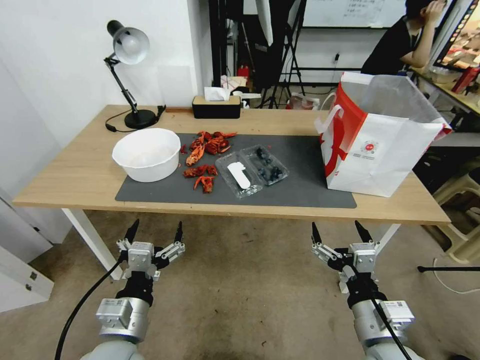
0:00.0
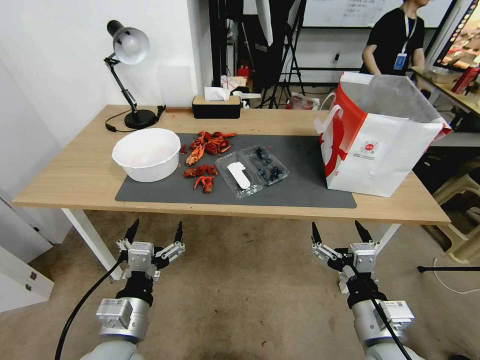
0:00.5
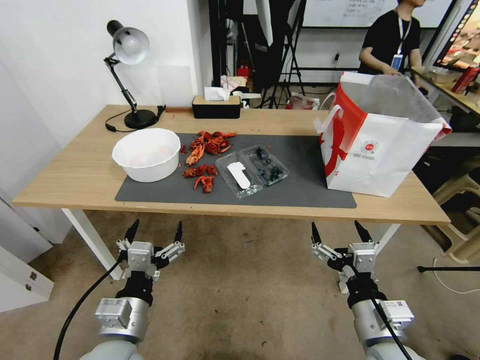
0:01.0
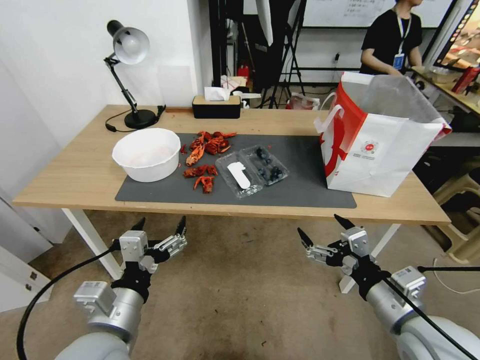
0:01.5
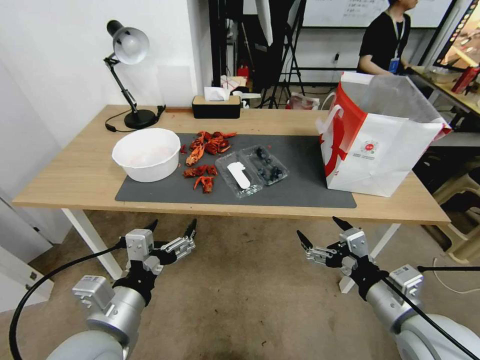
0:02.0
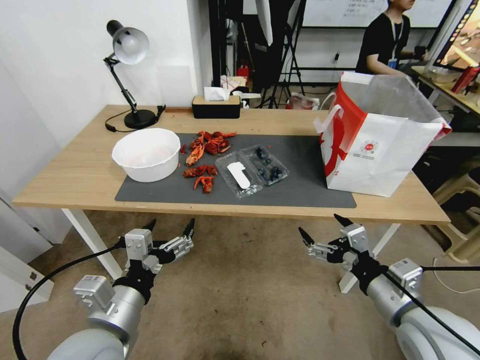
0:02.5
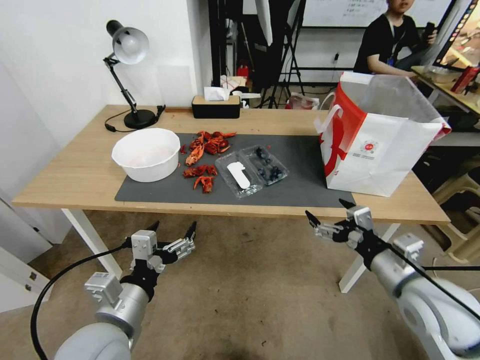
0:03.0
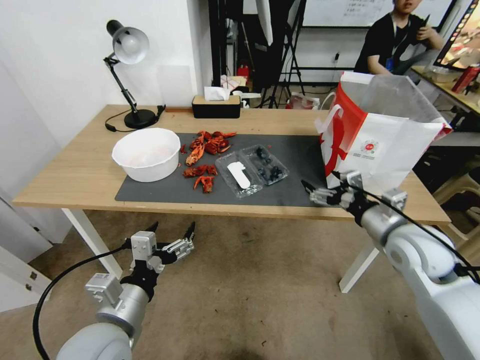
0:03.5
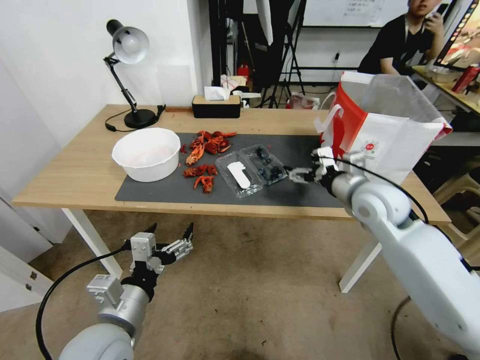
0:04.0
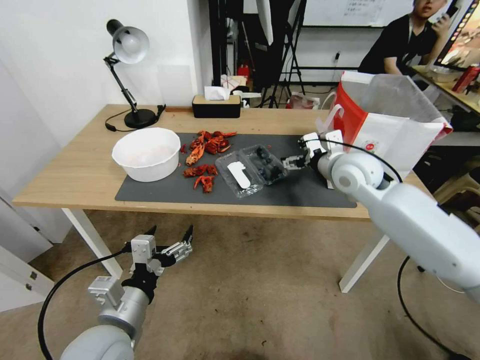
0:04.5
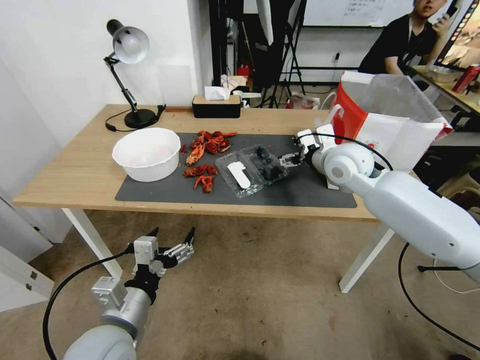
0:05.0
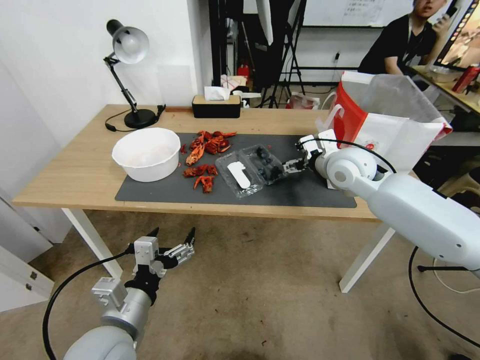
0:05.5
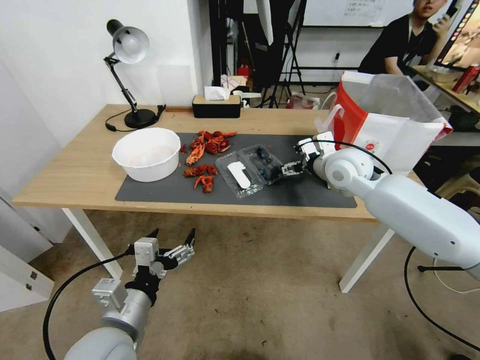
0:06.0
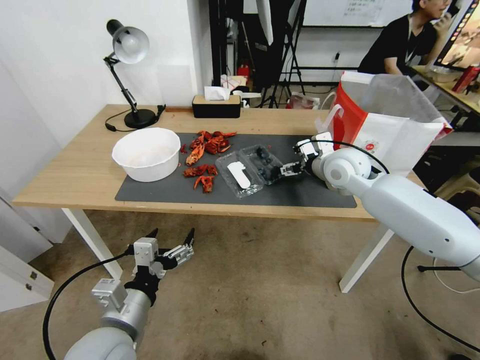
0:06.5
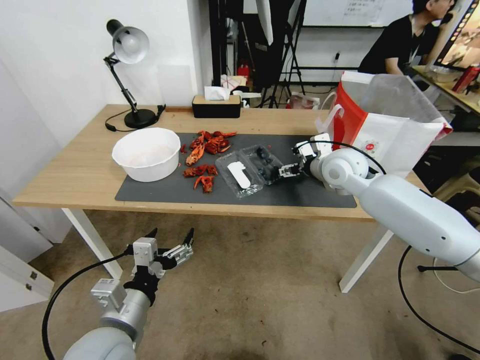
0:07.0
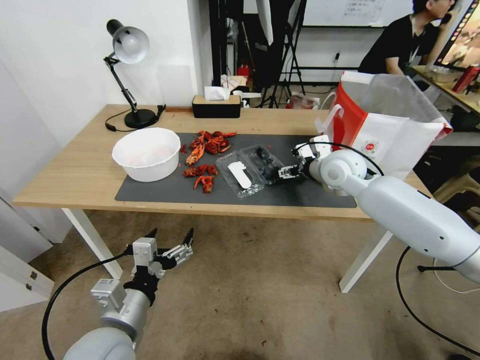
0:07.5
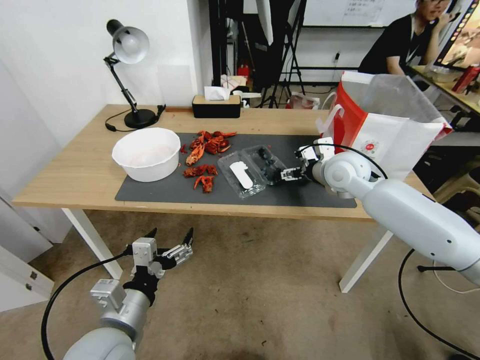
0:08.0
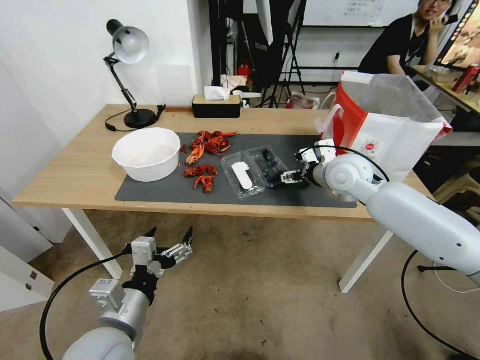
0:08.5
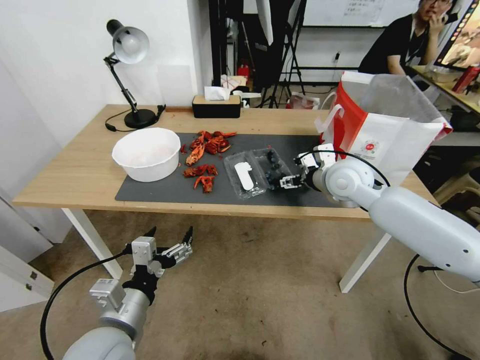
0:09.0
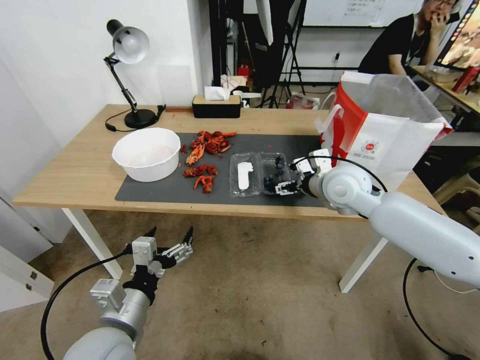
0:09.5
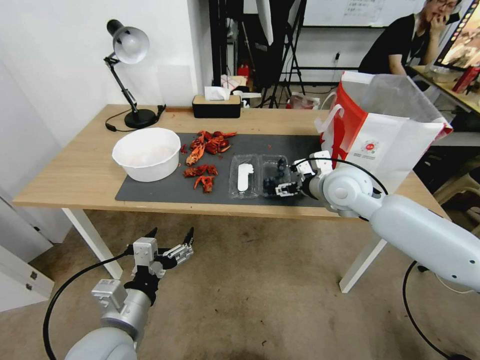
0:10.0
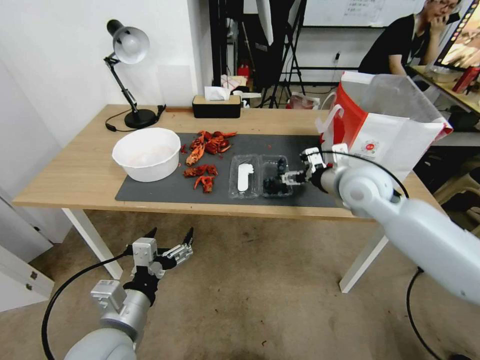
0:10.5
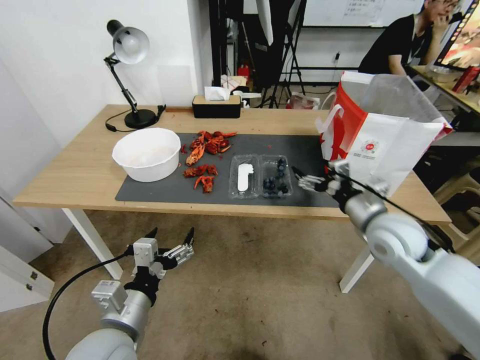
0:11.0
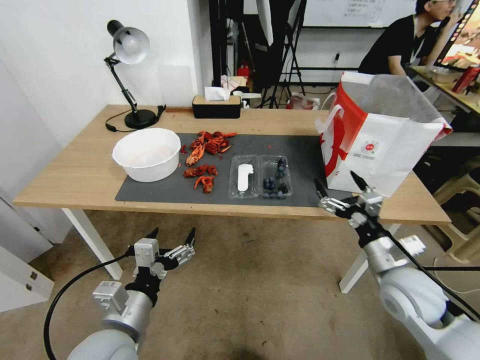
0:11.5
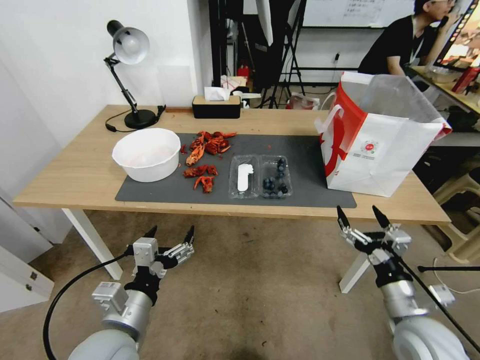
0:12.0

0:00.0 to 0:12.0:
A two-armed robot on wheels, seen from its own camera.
Task of the whole recording: Close the takeout container lid, then place the container into the takeout bag.
0:02.0 to 0:04.0: The right gripper shifts approximately 25 cm forward.
0:04.0 to 0:06.0: The right gripper heads forward, covering some 10 cm.
0:06.0 to 0:08.0: The grippers make only small movements.
0:08.0 to 0:10.0: The right gripper heads backward, covering roughly 5 cm.
0:10.0 to 0:12.0: The right gripper heads backward, downward and to the right, covering approximately 30 cm.

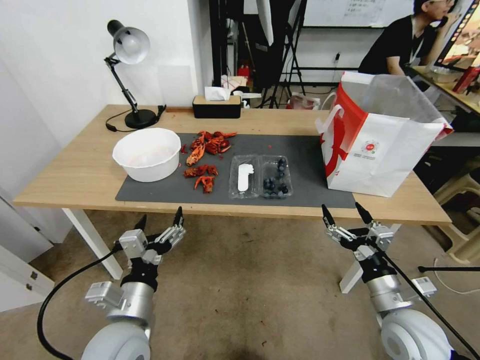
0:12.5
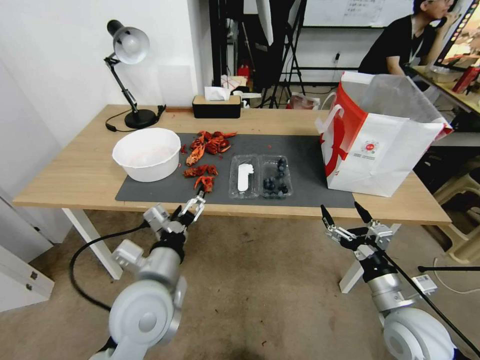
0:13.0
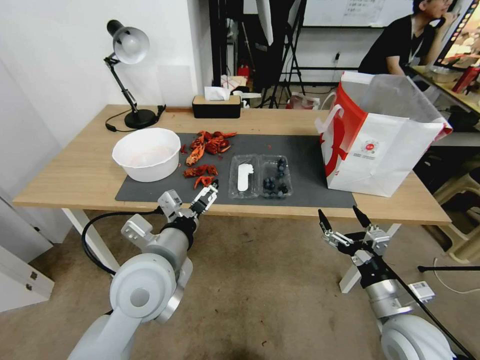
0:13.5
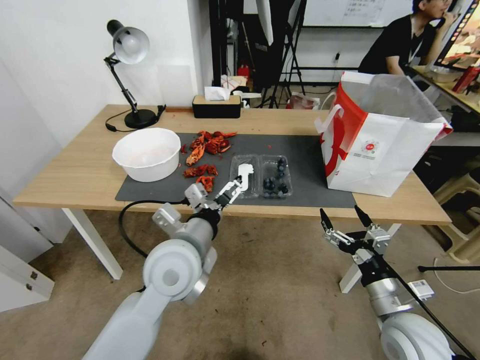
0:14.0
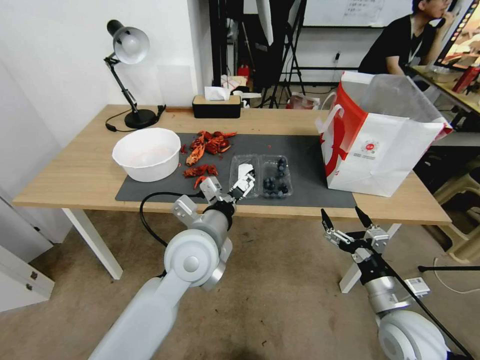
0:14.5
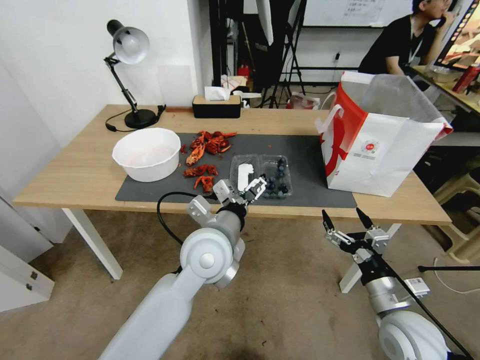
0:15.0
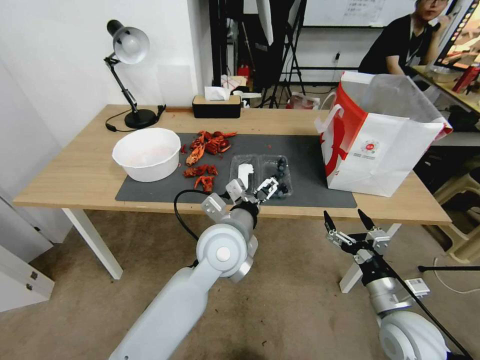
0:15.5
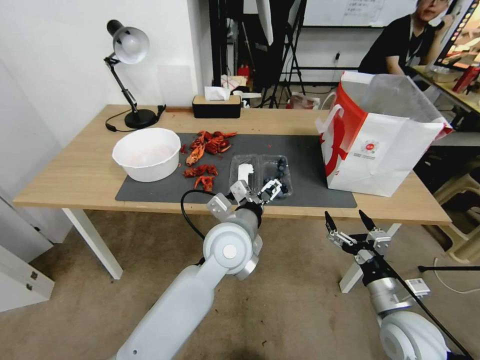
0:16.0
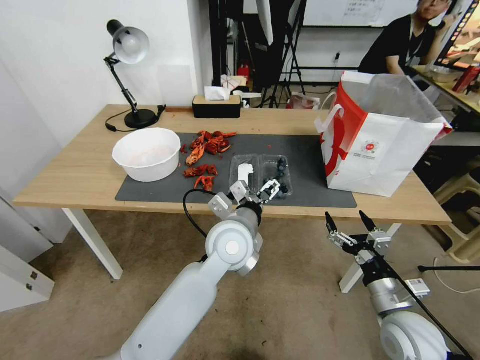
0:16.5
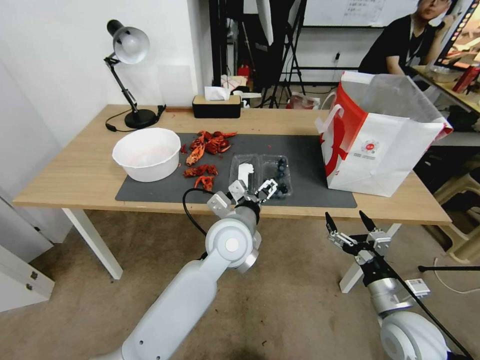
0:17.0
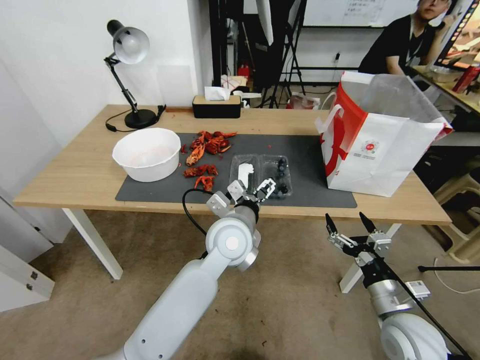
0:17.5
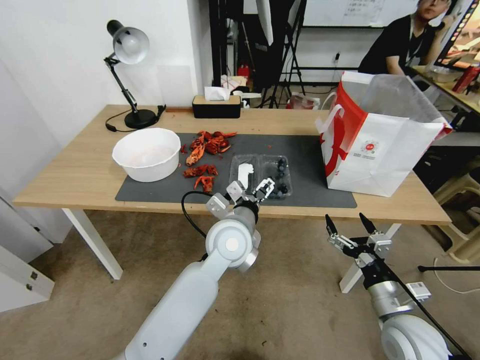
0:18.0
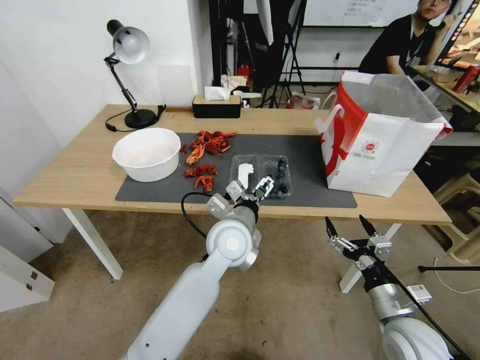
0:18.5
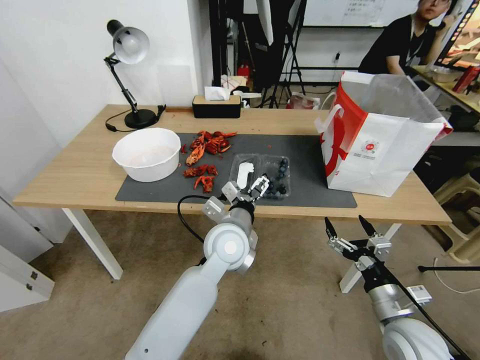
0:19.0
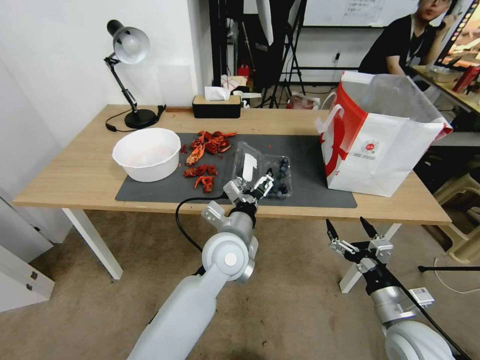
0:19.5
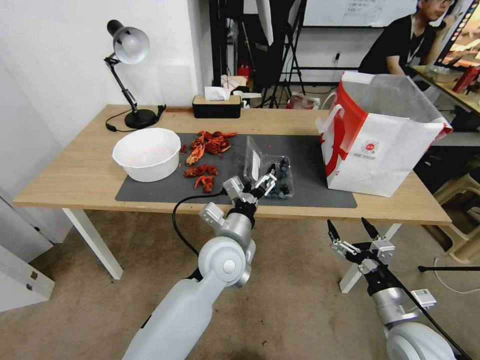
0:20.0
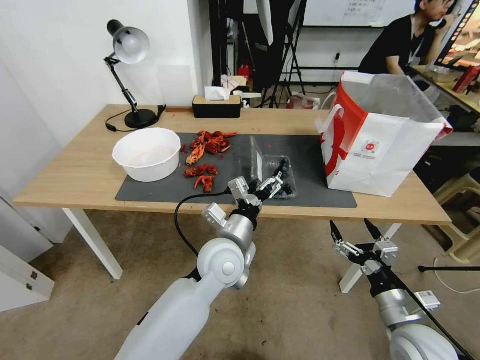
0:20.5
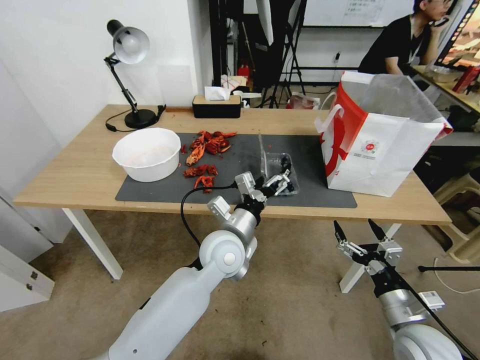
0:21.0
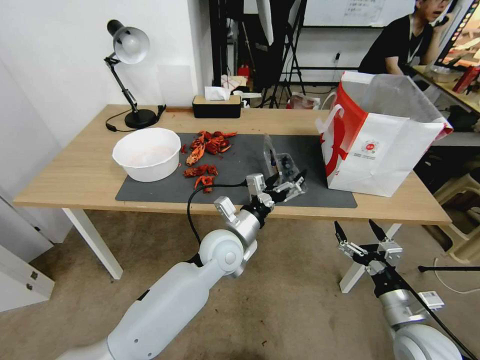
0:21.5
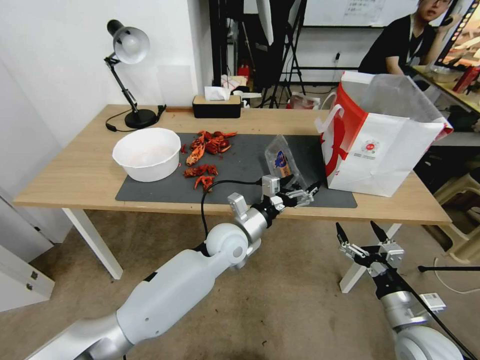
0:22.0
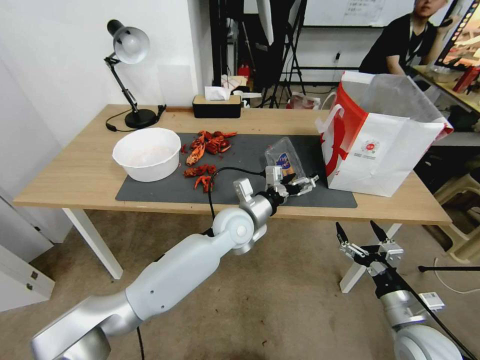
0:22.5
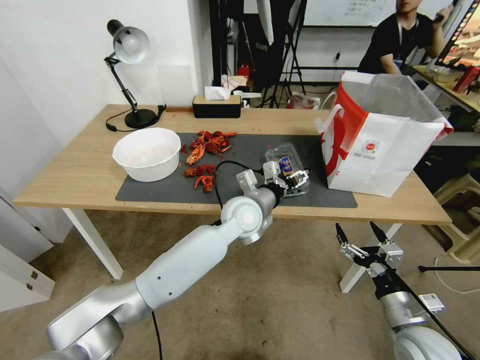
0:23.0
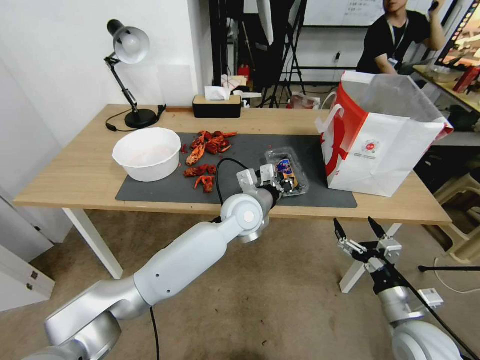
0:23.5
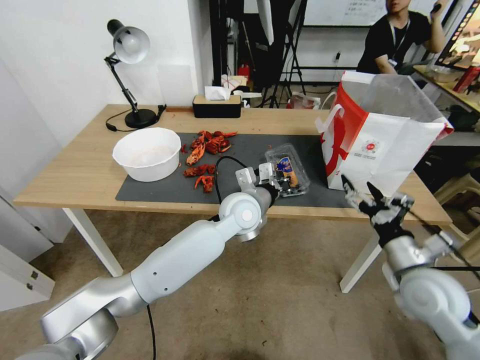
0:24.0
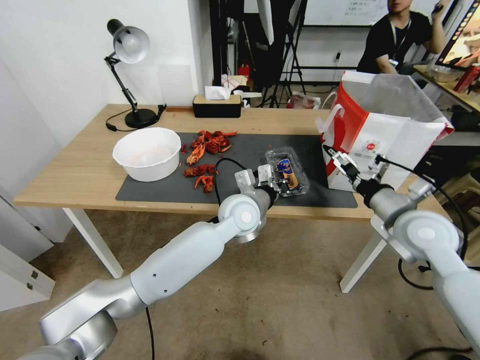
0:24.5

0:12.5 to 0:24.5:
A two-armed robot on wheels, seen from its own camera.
Task of the whole recording: Close the takeout container lid, then place the container into the takeout bag.
0:12.5 to 0:14.5: The left gripper is displaced forward, to the right and upward by roughly 20 cm.
0:14.5 to 0:16.5: The left gripper is displaced to the right by some 5 cm.
0:16.5 to 0:18.5: The grippers move only a little.
0:20.5 to 0:22.5: The left gripper goes about 10 cm forward.
0:22.5 to 0:24.5: The left gripper closes. The right gripper travels upward and forward by about 25 cm.

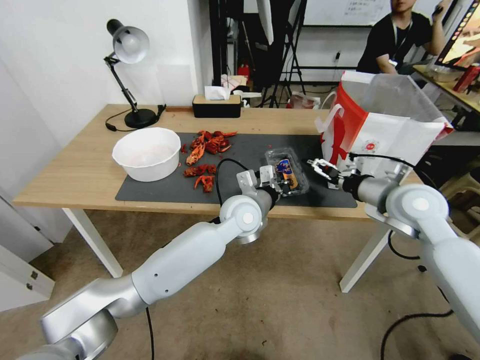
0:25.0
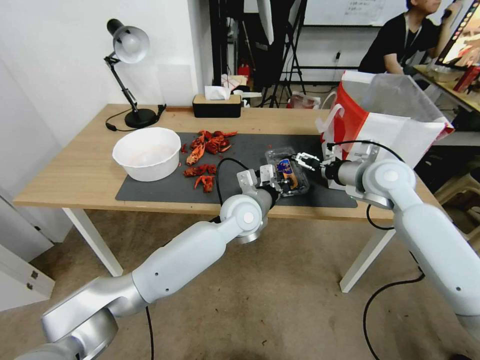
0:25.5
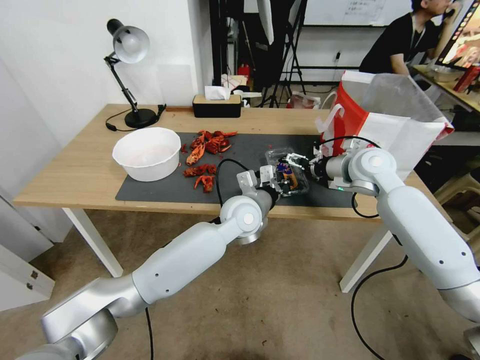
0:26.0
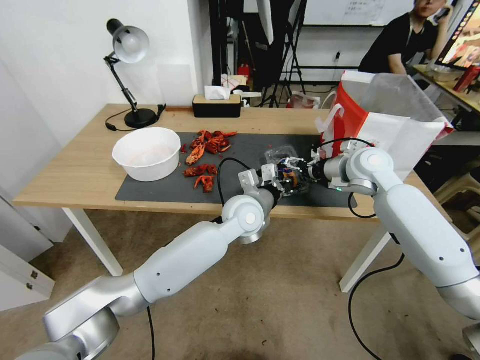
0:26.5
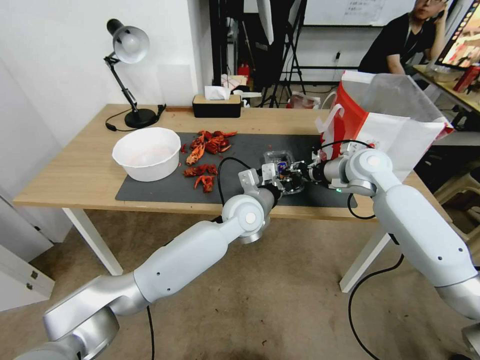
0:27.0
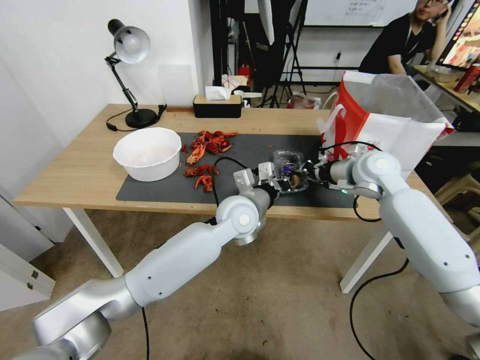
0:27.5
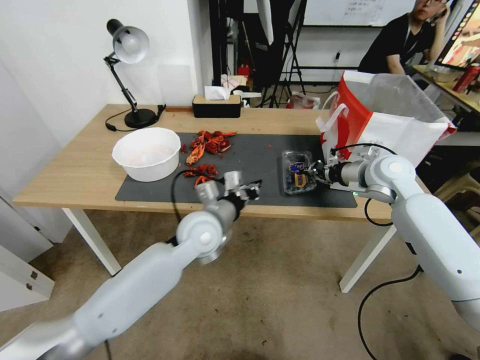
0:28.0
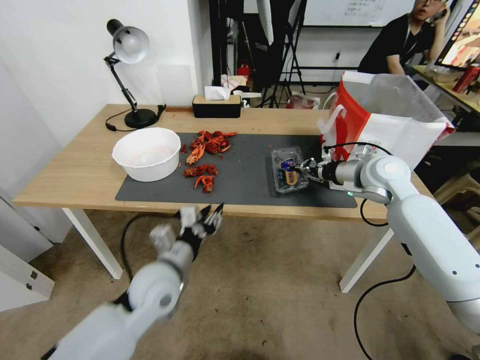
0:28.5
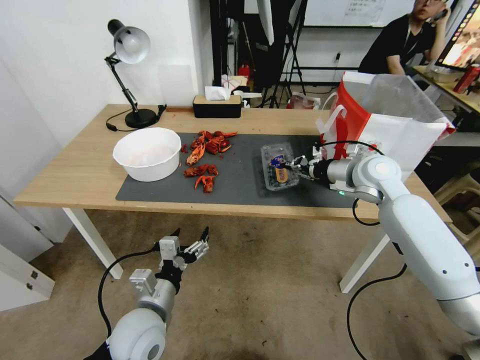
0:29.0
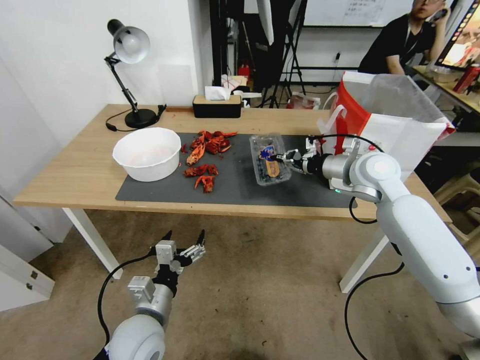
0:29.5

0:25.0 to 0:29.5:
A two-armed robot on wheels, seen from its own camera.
Task of the whole recording: Close the takeout container lid, then place the container into the takeout bag.
0:25.0 to 0:27.0: The right gripper shifts approximately 10 cm forward, and closes up.
0:27.0 to 0:29.5: The left gripper is displaced backward, to the left and downward by roughly 30 cm, and opens.
